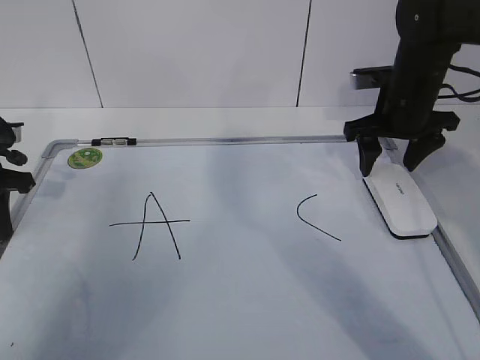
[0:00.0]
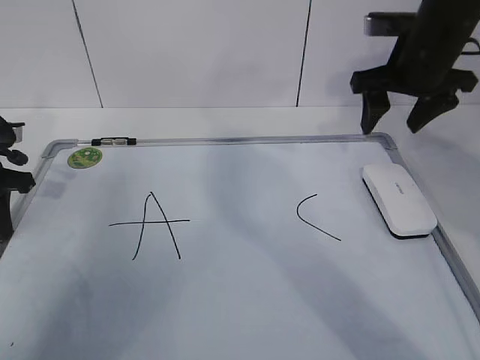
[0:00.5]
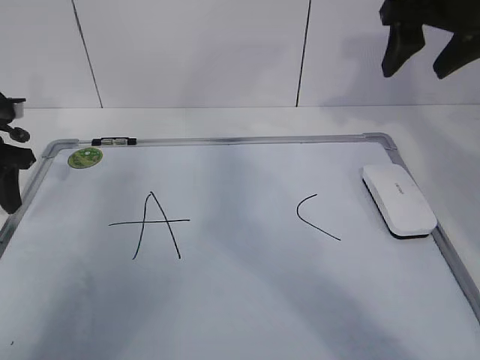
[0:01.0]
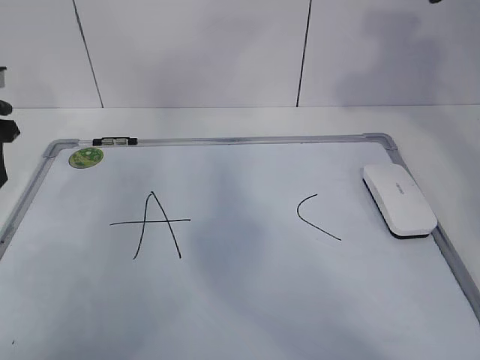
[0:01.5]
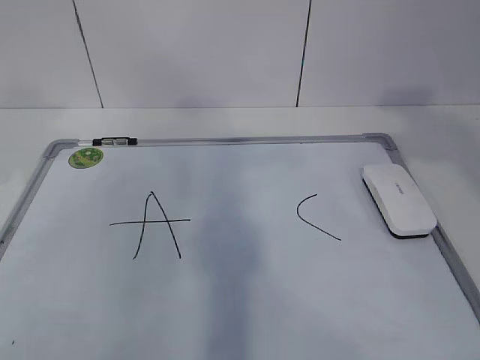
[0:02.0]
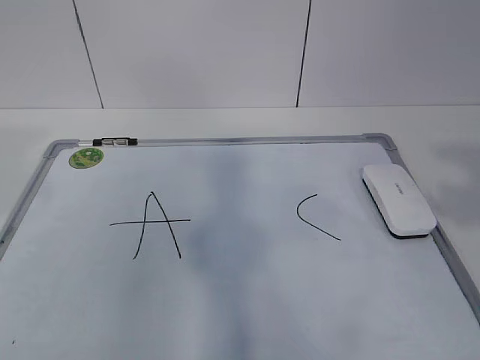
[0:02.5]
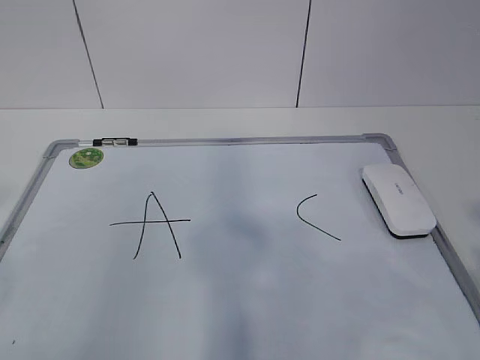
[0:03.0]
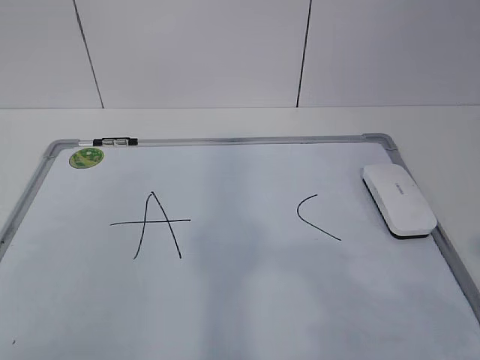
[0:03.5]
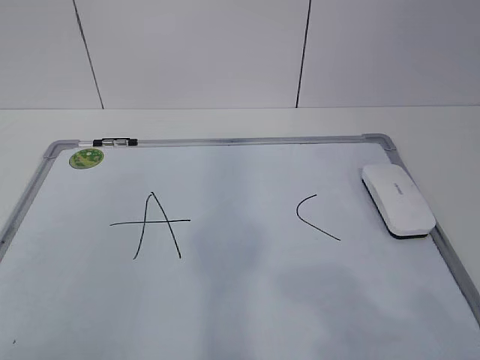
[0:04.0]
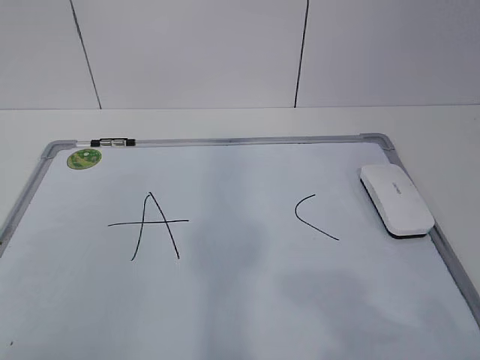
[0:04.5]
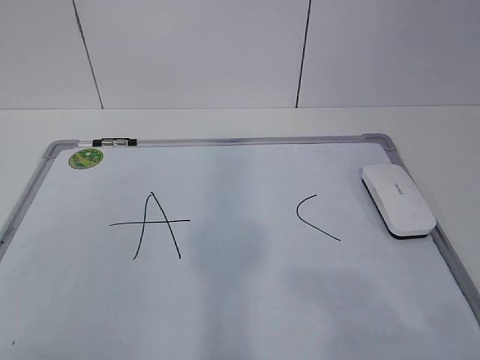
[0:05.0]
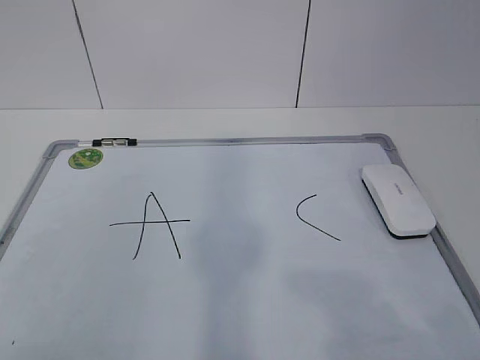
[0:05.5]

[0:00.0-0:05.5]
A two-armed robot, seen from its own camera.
Task of the whole recording: pick up the eraser on the blackboard and erase the letter "B".
0:00.0 to 0:02.0: The right gripper heads backward and upward, covering roughly 30 cm; the left gripper heads upward and backward, covering roughly 15 cm, and opens its fingers.
0:02.0 to 0:03.5: The left gripper moves backward, some 30 cm. Meanwhile the right gripper moves backward and downward, roughly 20 cm.
